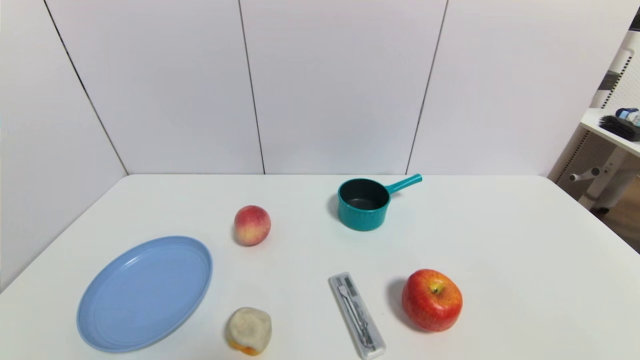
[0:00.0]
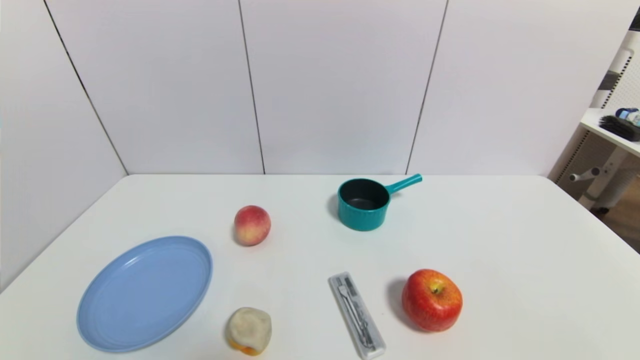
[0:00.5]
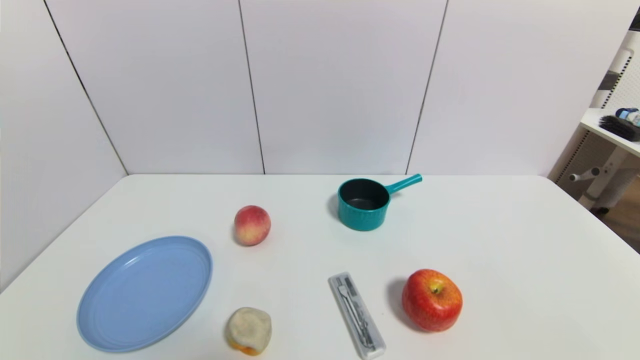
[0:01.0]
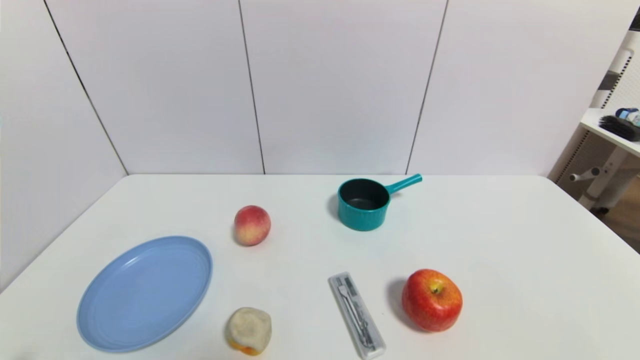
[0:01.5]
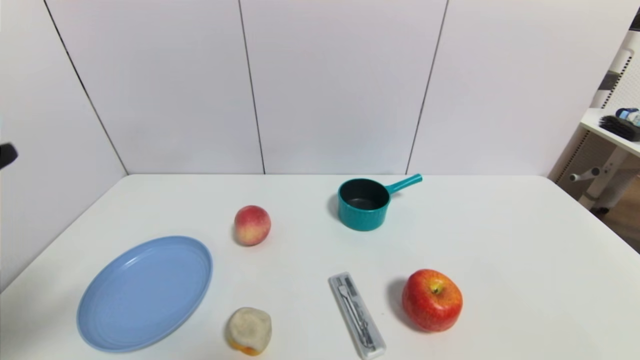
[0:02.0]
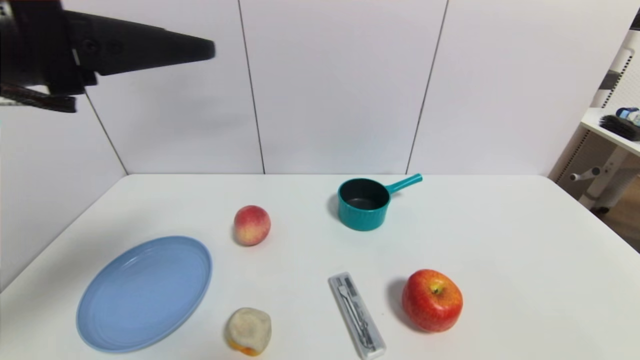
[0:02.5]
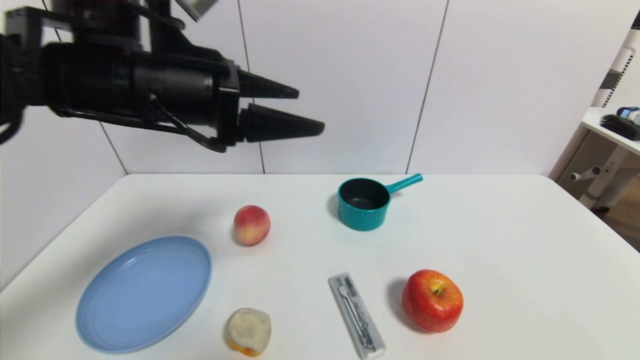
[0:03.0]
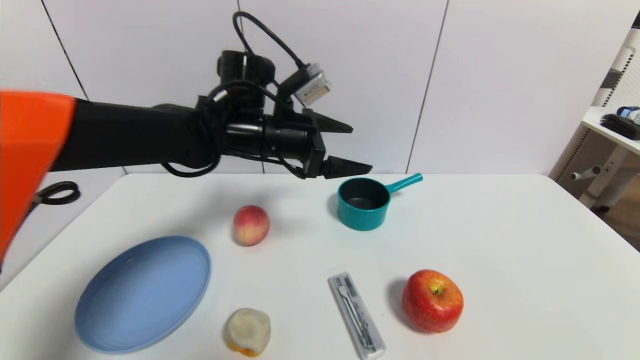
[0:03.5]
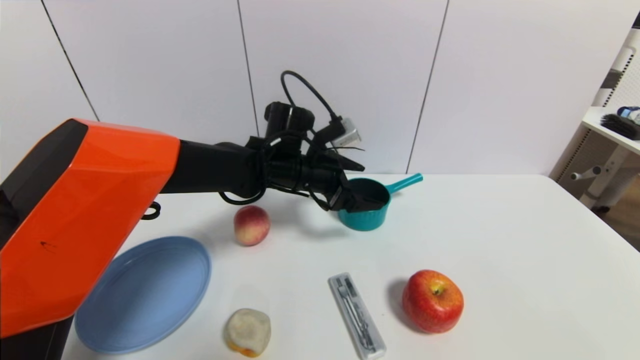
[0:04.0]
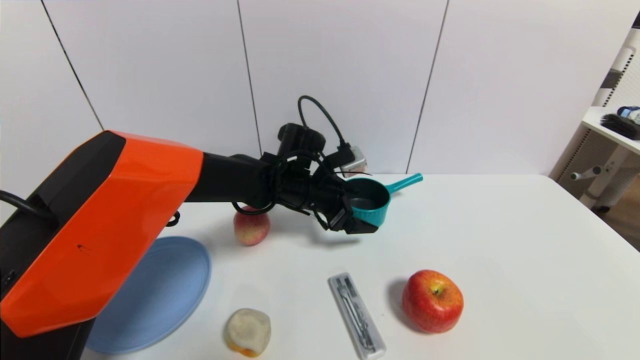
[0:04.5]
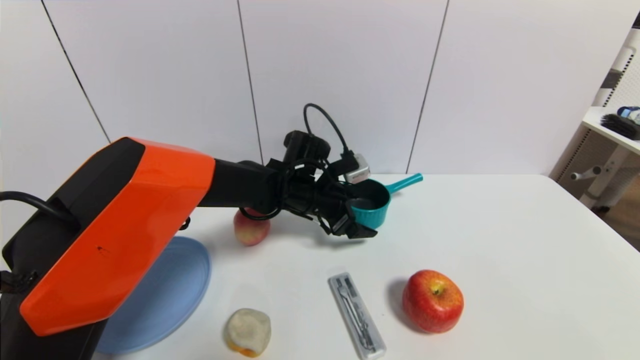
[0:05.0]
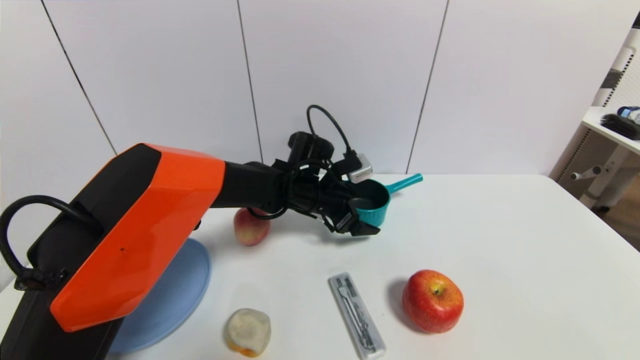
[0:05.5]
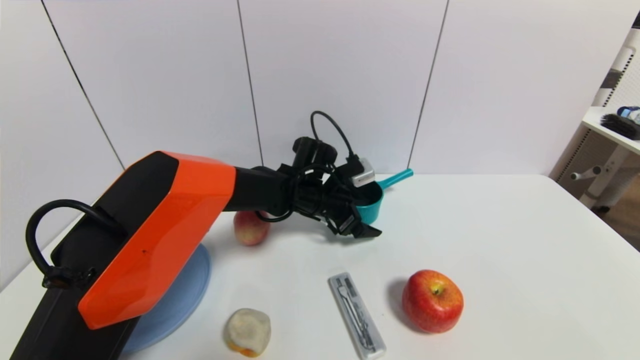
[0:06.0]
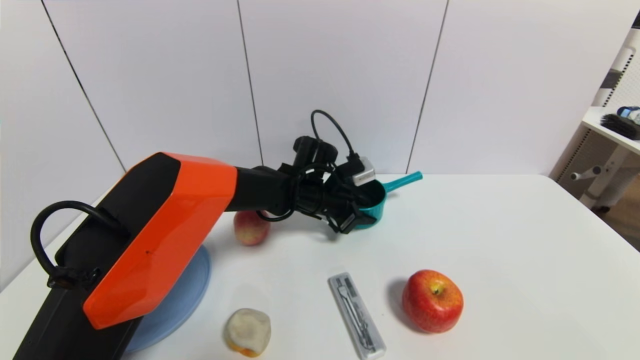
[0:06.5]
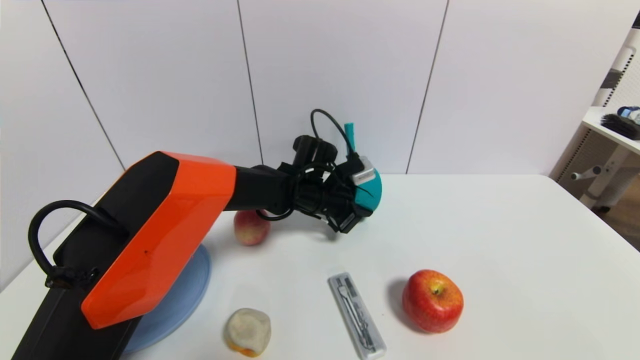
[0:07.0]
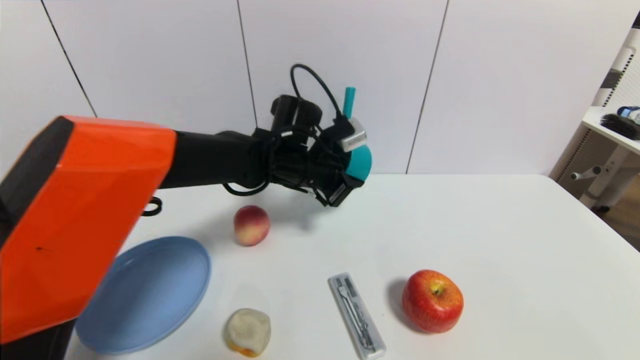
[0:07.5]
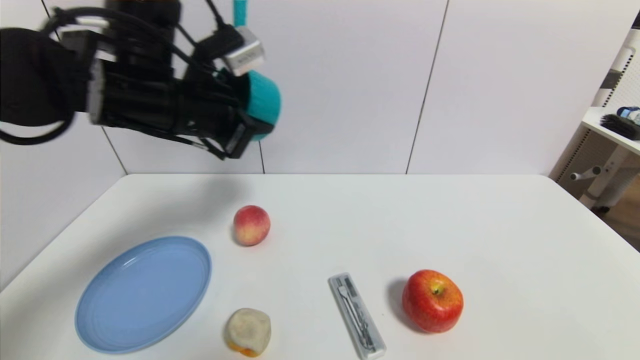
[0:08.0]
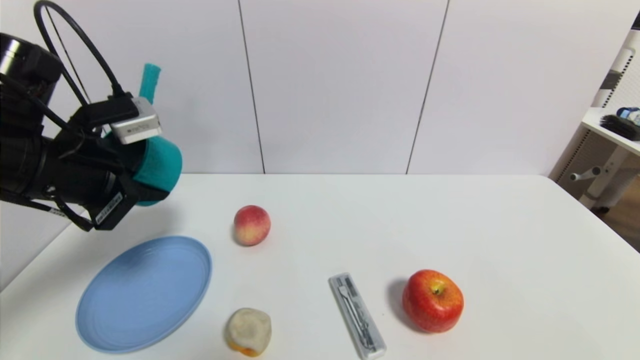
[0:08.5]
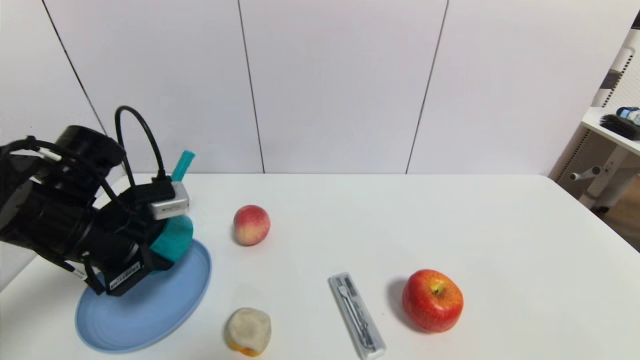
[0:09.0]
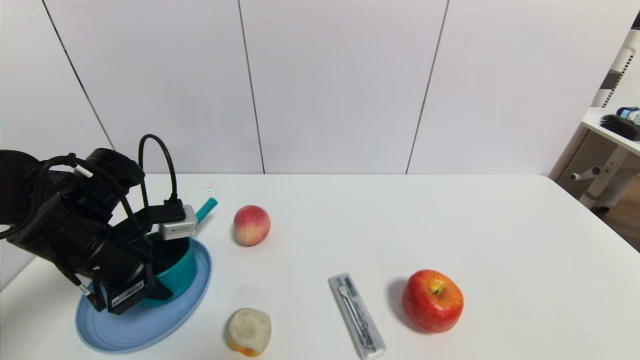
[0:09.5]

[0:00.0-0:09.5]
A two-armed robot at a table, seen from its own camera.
Task of the whole recording: use a gripper to pick the target object and place on the blue plate.
Step, 0:00.0 to 0:06.5: Grasp the blue pot with the left gripper.
0:00.0 to 0:02.0: The left gripper heads upward, covering approximately 25 cm.
0:02.0 to 0:04.0: The left gripper moves forward and to the right, approximately 40 cm.
0:04.0 to 0:05.5: The left gripper moves downward, roughly 5 cm.
0:05.5 to 0:07.5: The left gripper moves upward, roughly 5 cm, and closes its fingers.
0:07.5 to 0:09.5: The left gripper heads to the left and backward, covering approximately 25 cm.

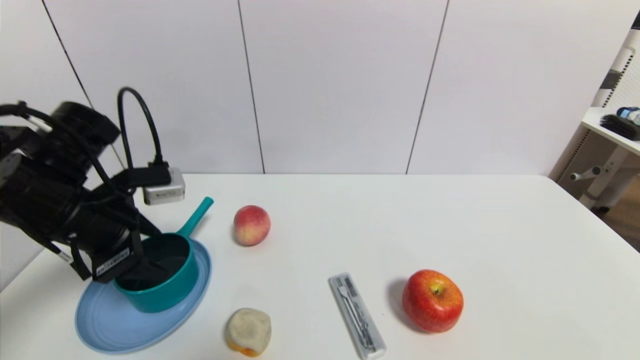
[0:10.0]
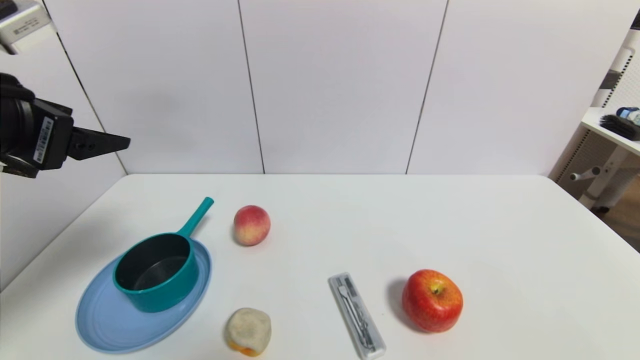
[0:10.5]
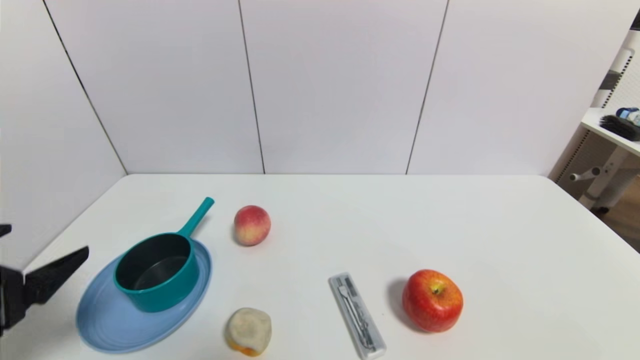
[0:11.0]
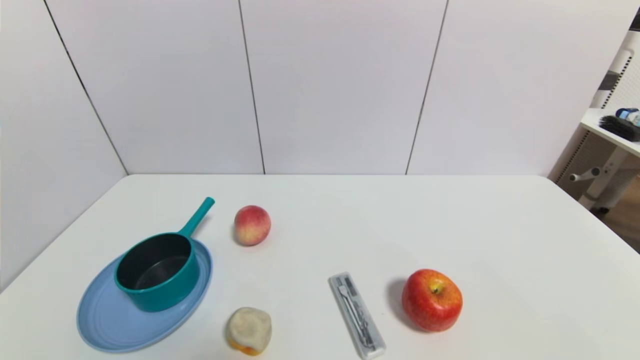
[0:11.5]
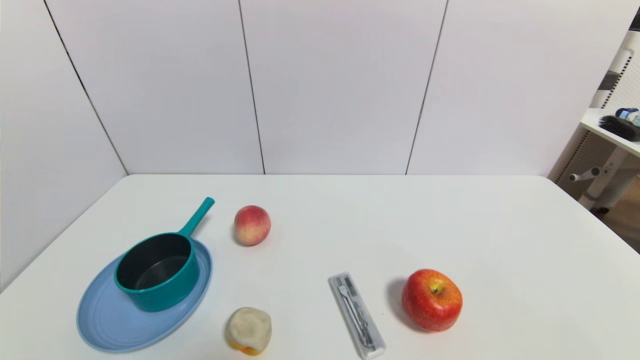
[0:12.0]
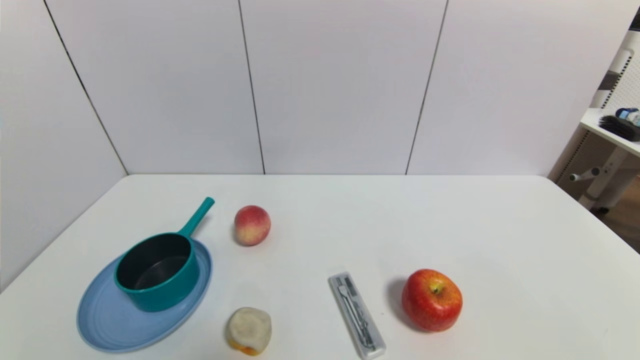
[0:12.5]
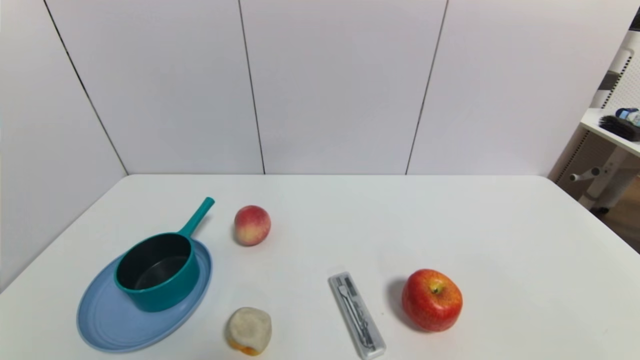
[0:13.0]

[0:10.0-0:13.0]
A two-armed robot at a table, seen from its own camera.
Task of the whole recording: use a gripper to pick the target object and place on the blue plate.
0:10.0 to 0:11.5: The left gripper shifts some 30 cm backward and downward.

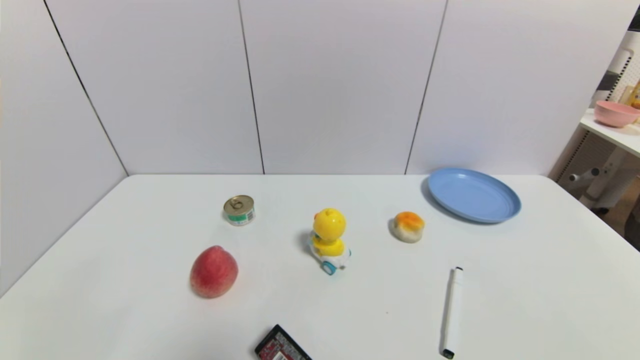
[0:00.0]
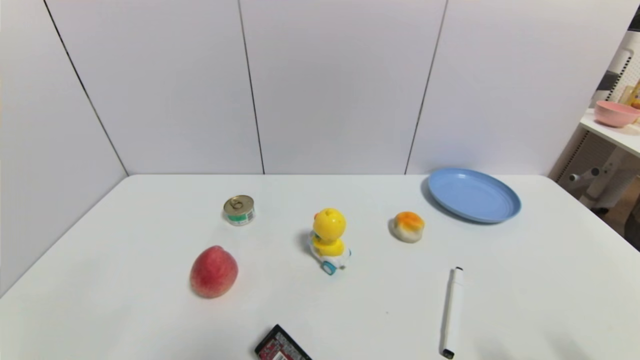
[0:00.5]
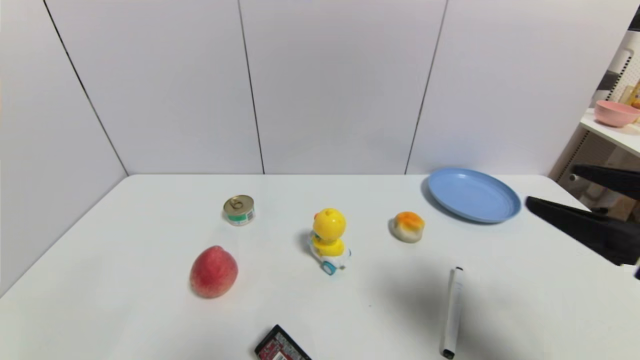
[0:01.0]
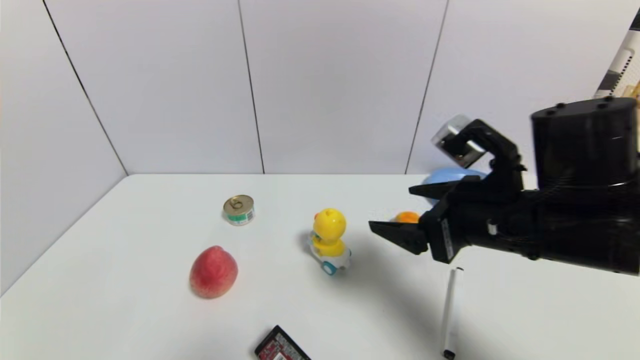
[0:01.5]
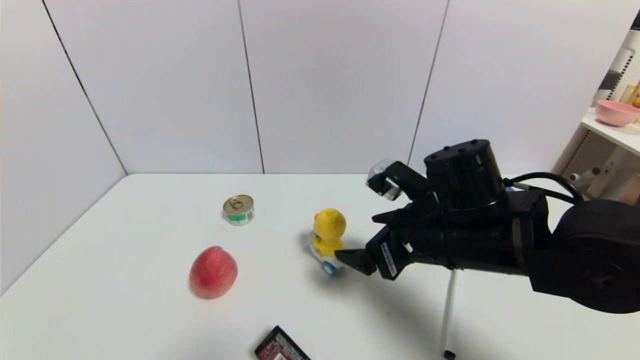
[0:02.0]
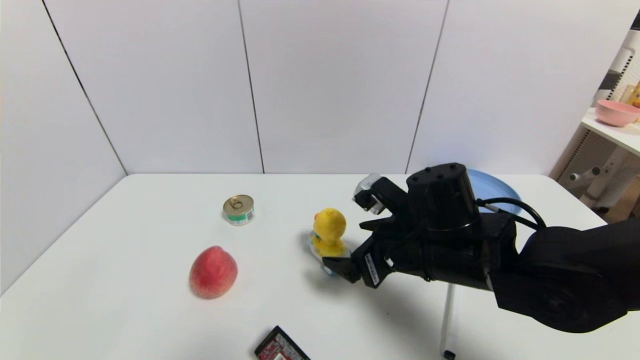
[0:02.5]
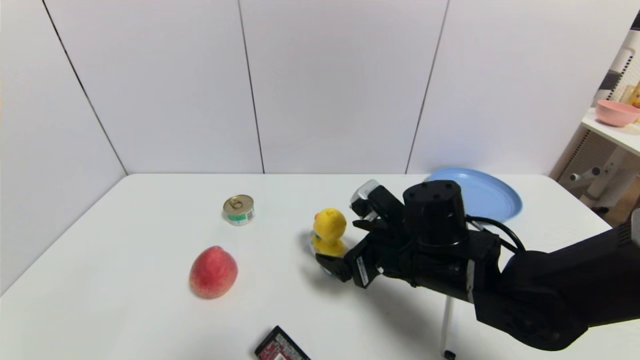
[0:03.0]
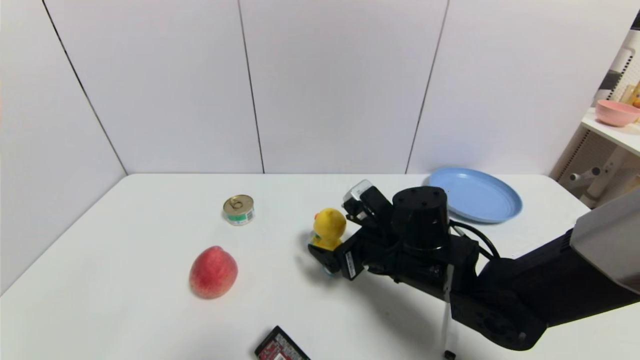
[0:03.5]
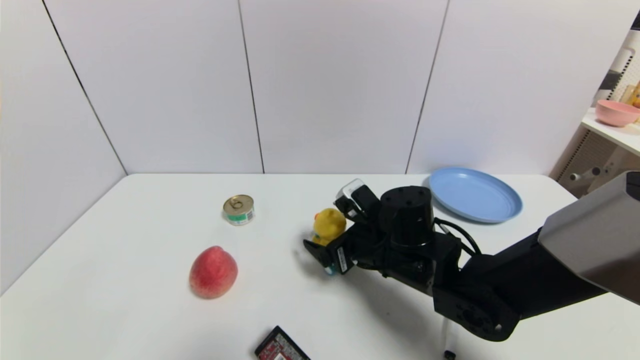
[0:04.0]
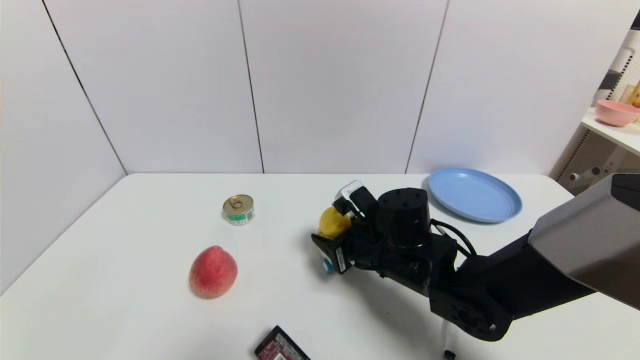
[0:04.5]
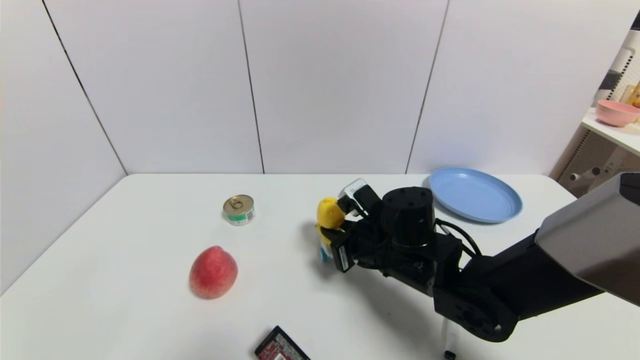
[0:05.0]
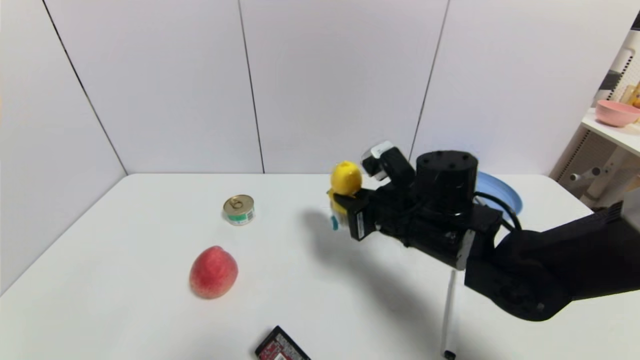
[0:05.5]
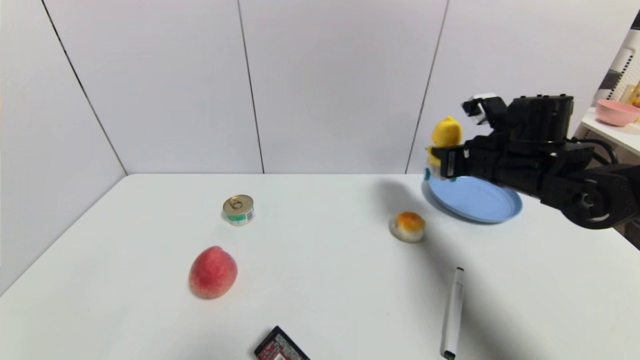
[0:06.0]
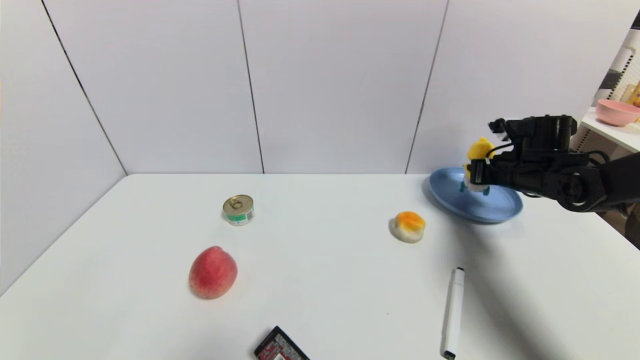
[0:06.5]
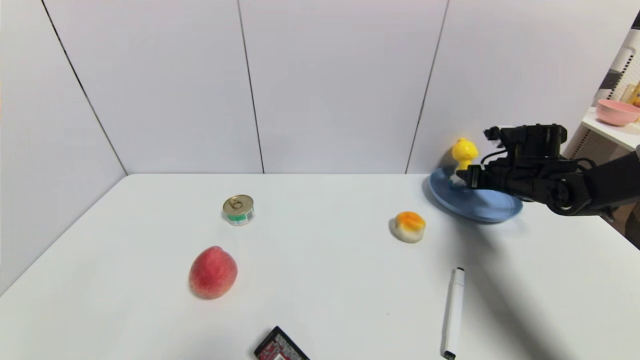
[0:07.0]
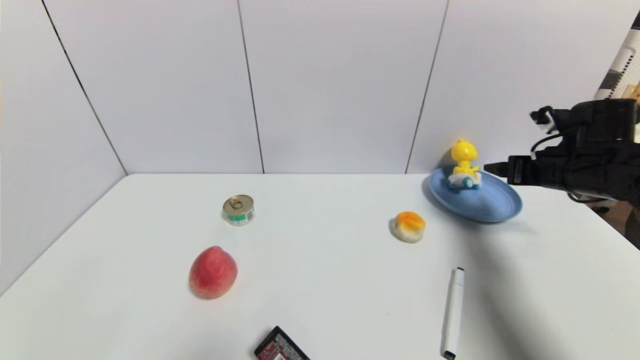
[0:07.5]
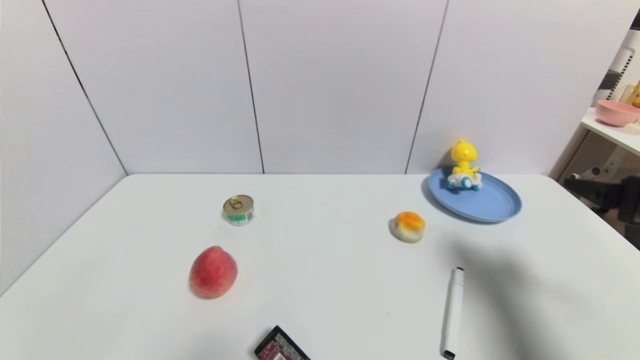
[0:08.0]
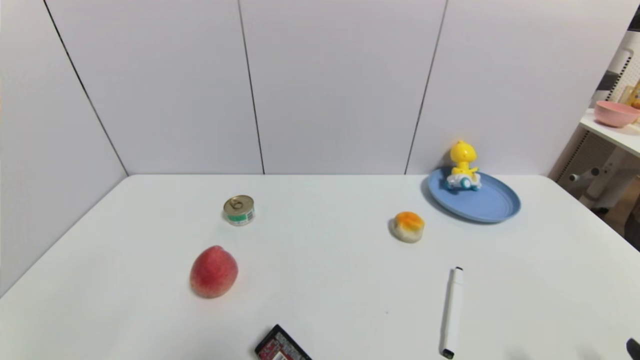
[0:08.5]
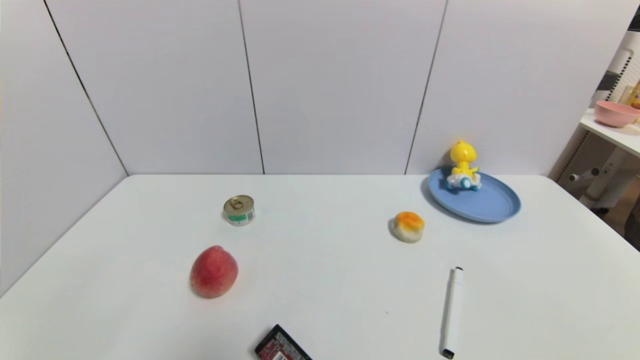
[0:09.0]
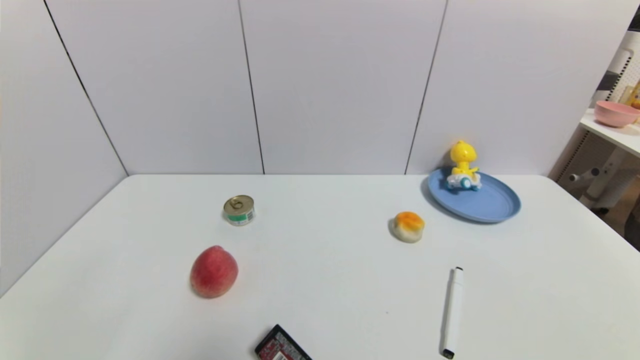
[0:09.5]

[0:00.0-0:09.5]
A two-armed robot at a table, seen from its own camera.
Task of the whole recording: use a gripper to pick the target object and place on the blue plate.
Step, 0:00.0 to 0:04.5: Grasp the duck toy with the right gripper.
Step, 0:05.0 to 0:06.5: Place the duck toy on the blue plate with the right gripper.
0:00.0 to 0:02.0: The right gripper travels forward and to the left by approximately 35 cm.
0:02.0 to 0:04.0: The right gripper heads downward, covering about 5 cm.
0:04.0 to 0:05.5: The right gripper is displaced upward by about 5 cm, and closes its fingers.
0:05.5 to 0:07.5: The right gripper shifts some 25 cm to the right, and opens up.
0:07.5 to 0:09.5: The right gripper is displaced backward by approximately 35 cm.
